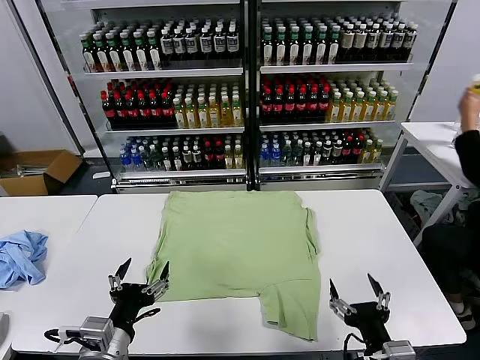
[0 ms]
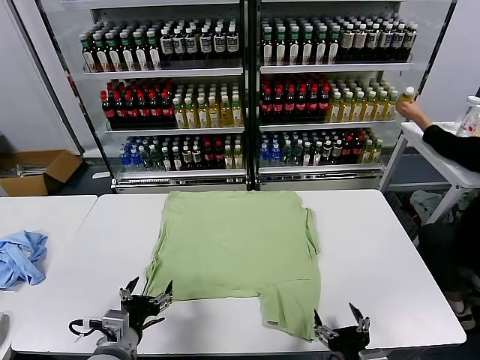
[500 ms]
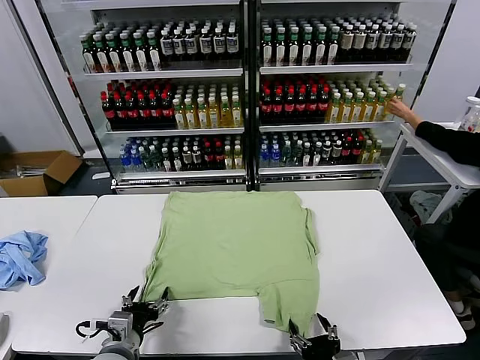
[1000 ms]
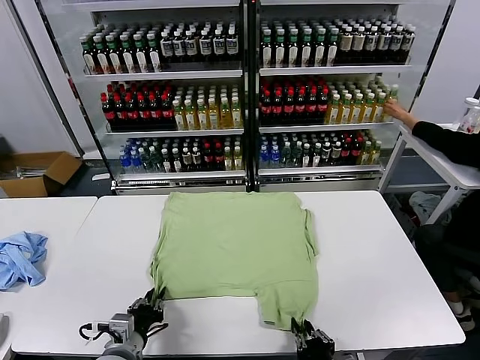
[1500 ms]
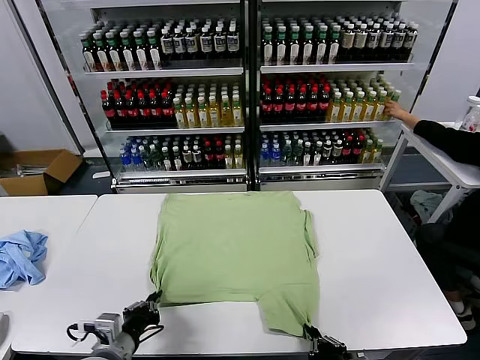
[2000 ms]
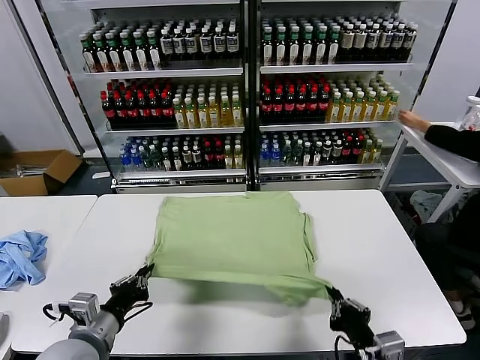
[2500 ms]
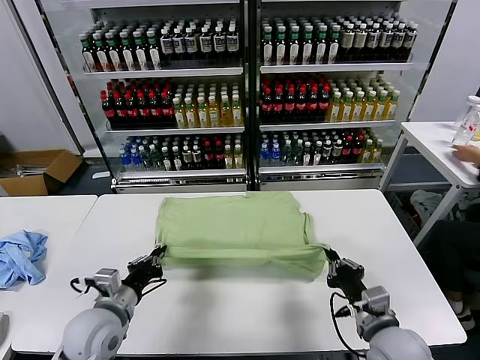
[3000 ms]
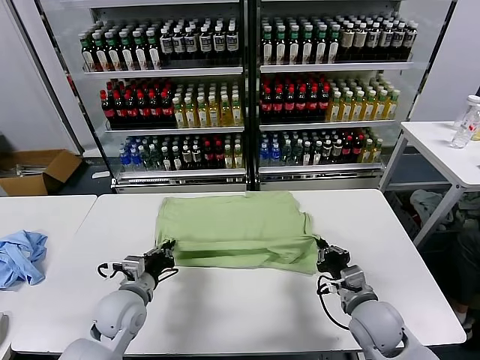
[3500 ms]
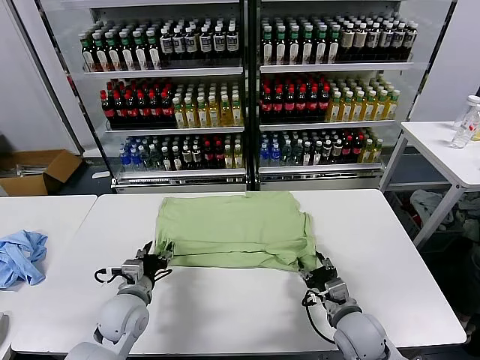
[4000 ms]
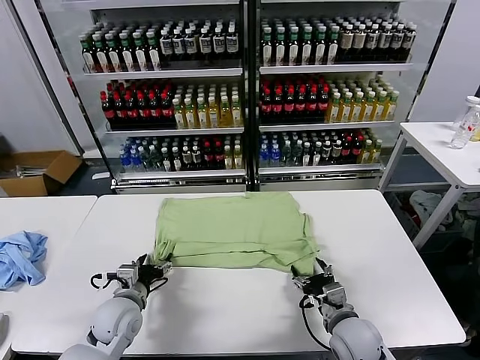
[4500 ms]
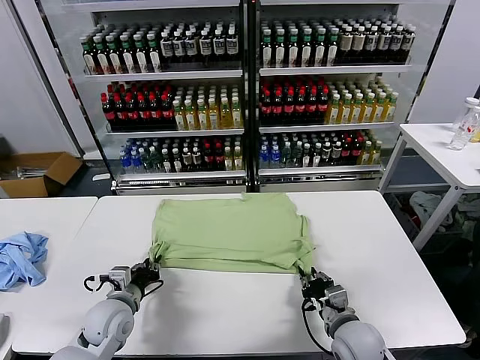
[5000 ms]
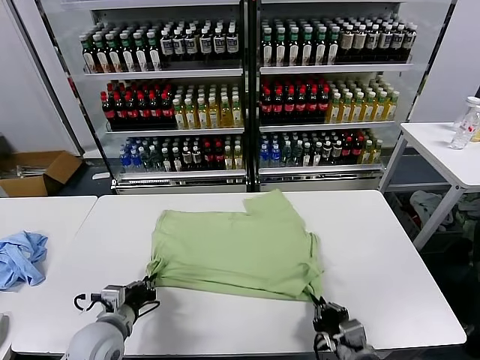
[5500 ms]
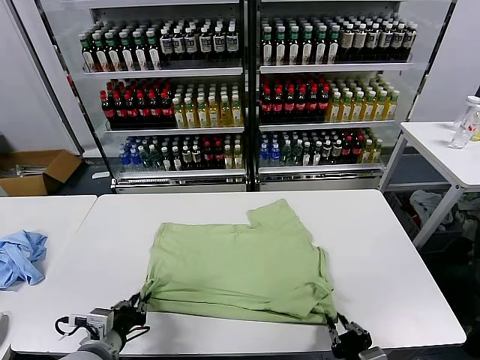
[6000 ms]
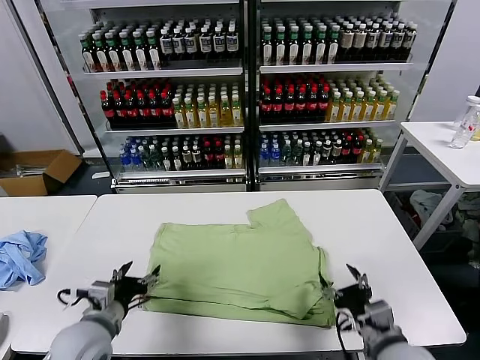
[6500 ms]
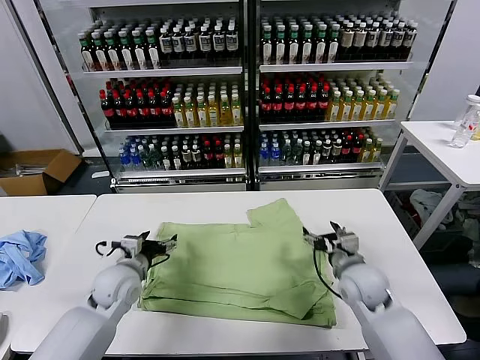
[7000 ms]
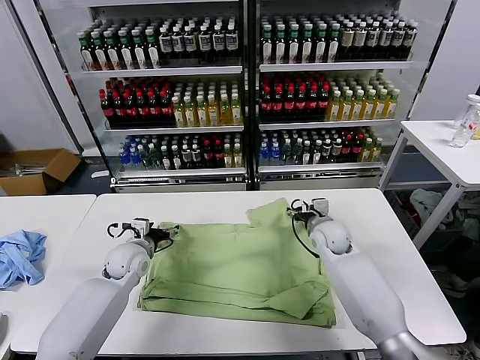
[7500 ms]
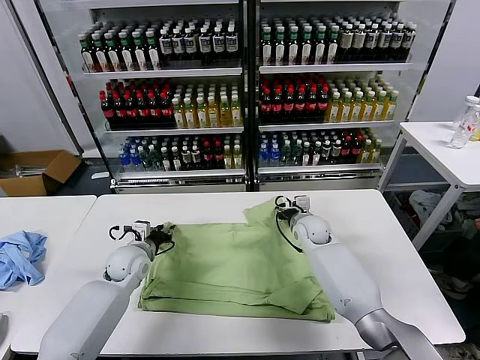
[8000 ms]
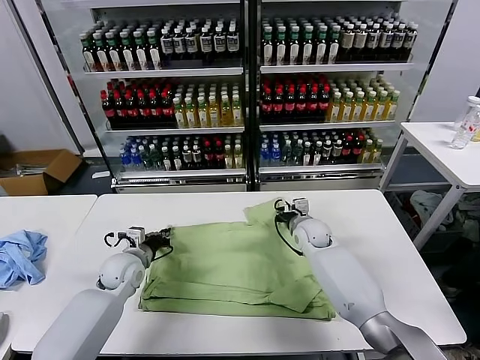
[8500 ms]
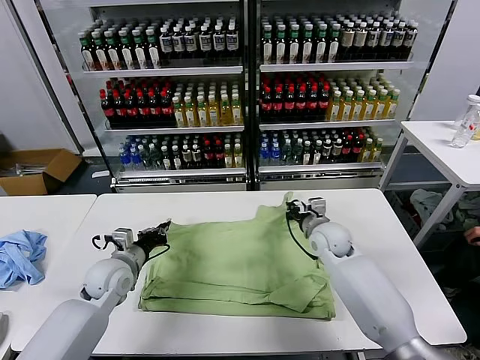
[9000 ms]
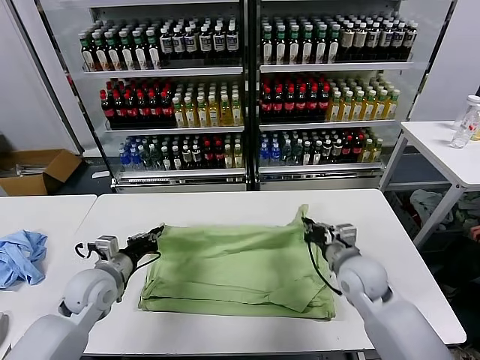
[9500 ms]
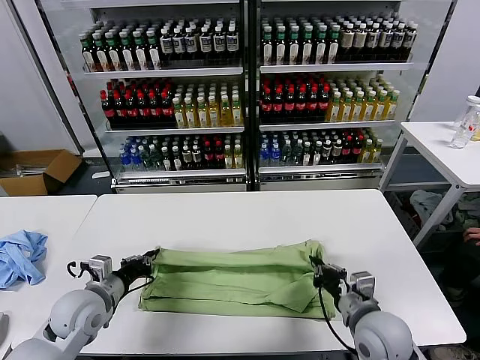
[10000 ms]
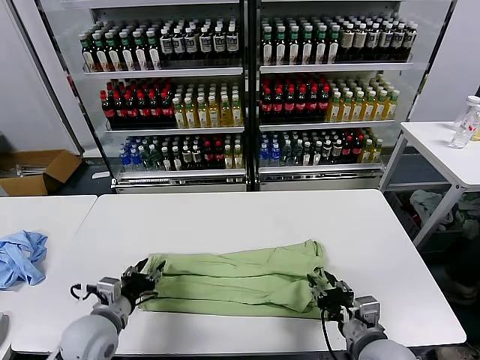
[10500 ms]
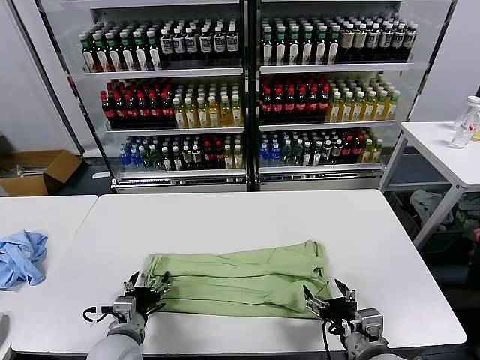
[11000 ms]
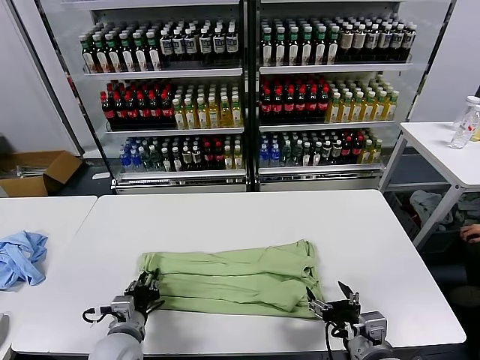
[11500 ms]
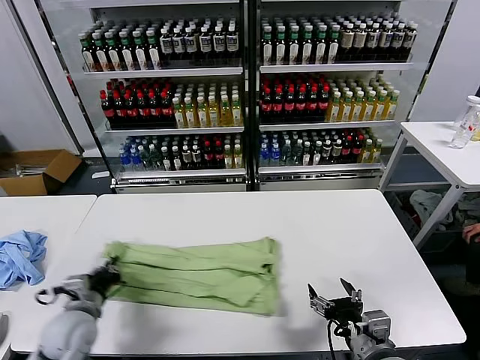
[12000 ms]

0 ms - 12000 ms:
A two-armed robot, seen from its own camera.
Task of the whole recording: fold and organize the clothes.
Step, 0 ms - 1500 ms: use both grippers simultaneously to clamp the lower edge of the clothing fabric.
Step, 2500 ms - 4000 ms: use both grippers to drag the lower edge of the fabric forward and fold it over the upper edge.
Step, 4500 ms - 6000 ms: Drag the clothes downward with both gripper.
Step, 6500 ms - 8500 ms: use both grippers simultaneously to clamp the upper edge of the clothing fabric.
Step, 9000 ms - 10500 ms: use both grippers to drag the upper edge of the fabric backward and fold it over the lower edge.
Step, 11000 ms - 11500 ms: use the left gripper to clamp the left edge of the fabric.
2000 ms - 4000 ms: The grippers both shift forward by about 15 cm. The right gripper opens its fingers. The left gripper opens.
4000 ms - 6000 ms: Both grippers travel together backward, approximately 15 cm. The right gripper closes. Meanwhile the left gripper closes up.
6000 ms - 8000 ms: The left gripper is displaced forward by some 25 cm, and opens, then closes again. The right gripper heads forward, covering about 40 cm, and opens and closes again.
8000 ms - 10000 ms: The right gripper moves backward, approximately 30 cm, and closes. The left gripper travels backward by about 15 cm, and closes up.
10000 ms - 12000 ms: The left gripper reaches roughly 5 cm to the right, then returns, and opens, then closes again. The right gripper goes some 10 cm backward, and opens.

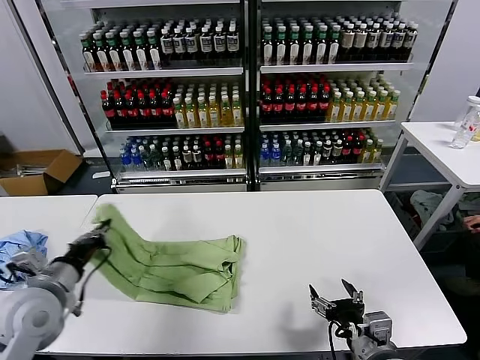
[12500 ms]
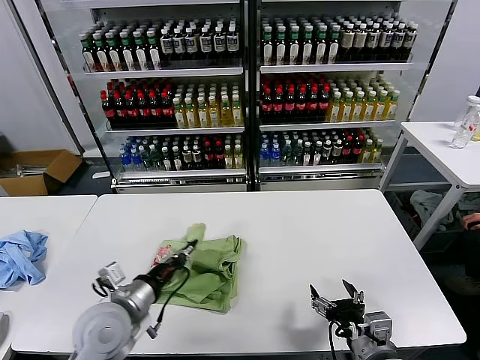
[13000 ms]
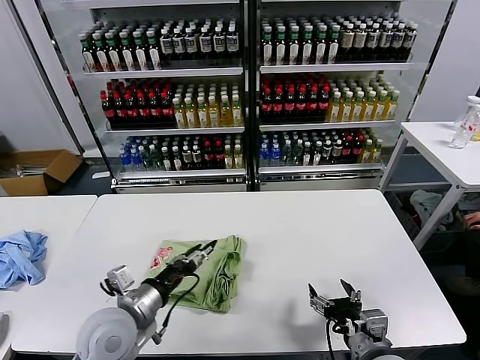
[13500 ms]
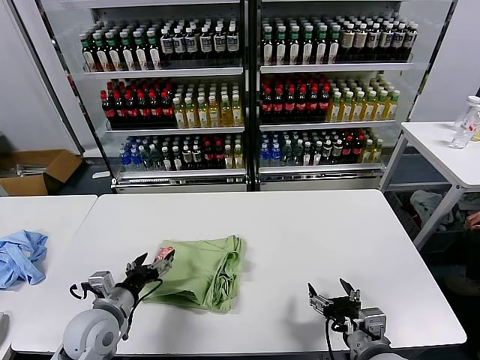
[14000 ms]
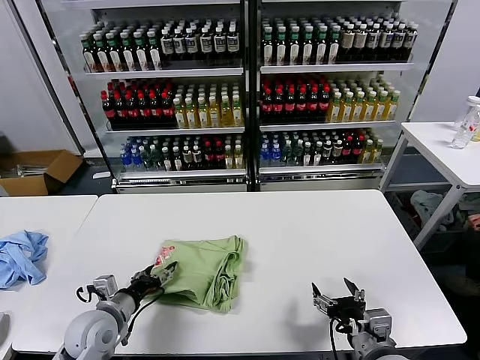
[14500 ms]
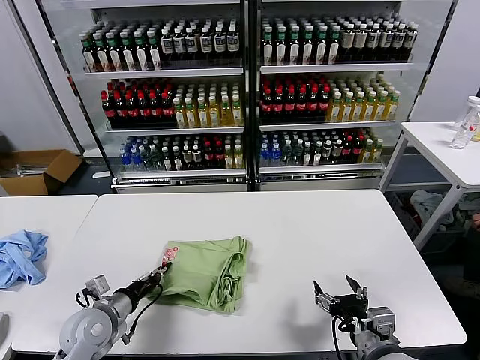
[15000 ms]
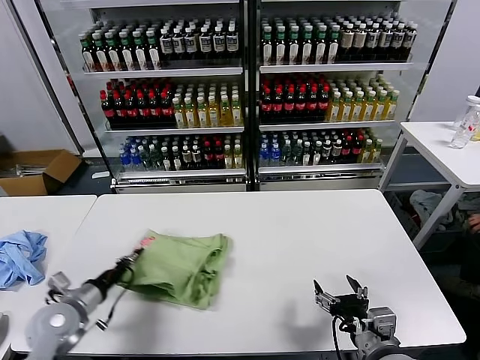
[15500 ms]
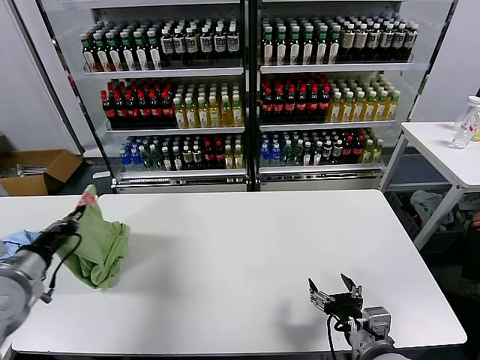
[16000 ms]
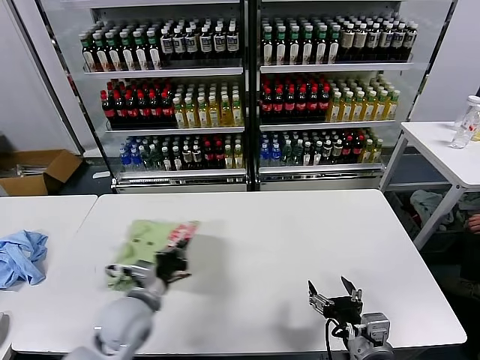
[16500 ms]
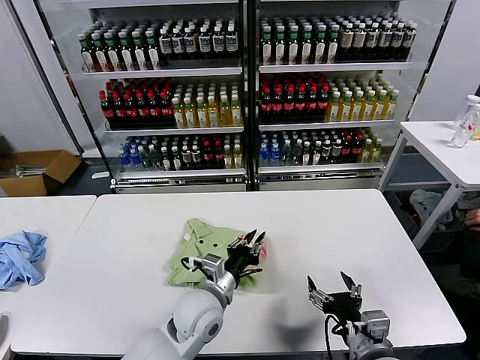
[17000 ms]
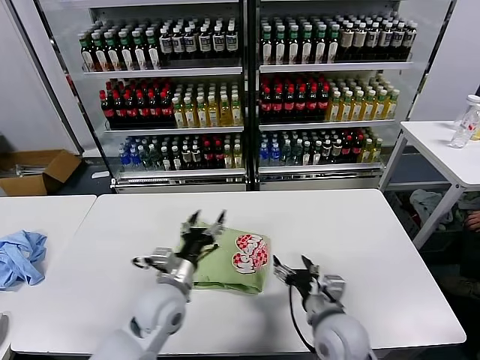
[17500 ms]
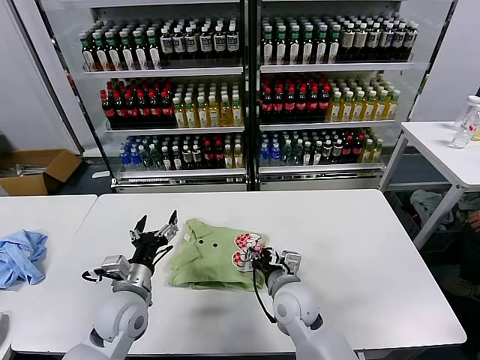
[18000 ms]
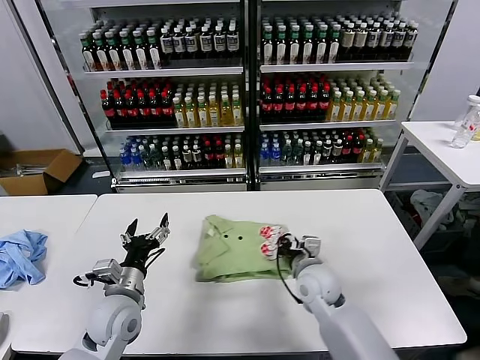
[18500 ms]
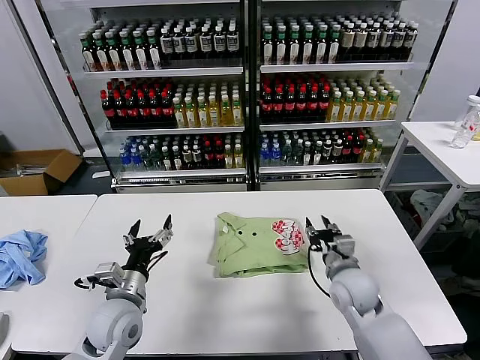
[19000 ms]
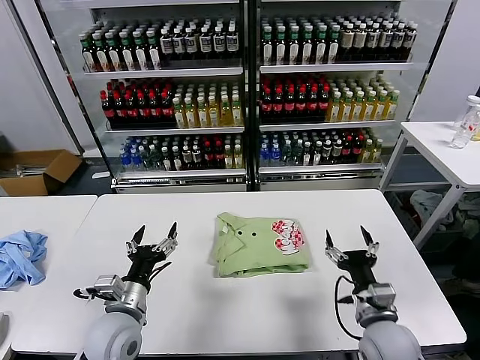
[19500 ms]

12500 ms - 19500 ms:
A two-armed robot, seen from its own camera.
Task of the whole recording: fold and organize the clothes.
Step, 13500 ms - 17000 ms: Flip the folded clothes over with left gripper.
Step, 17500 ms - 18500 ms: Drag the clothes to the center of the table.
12500 ms - 14500 ms: The left gripper moves downward and to the right, about 15 cm, and opens its fingers.
14500 ms - 16000 ms: The left gripper shifts roughly 20 cm to the left and upward, and closes.
16000 ms - 17500 ms: The right gripper is displaced forward and to the left by about 10 cm, while the left gripper goes approximately 30 cm to the right, and opens its fingers.
17500 ms - 19500 ms: The left gripper shifts approximately 10 cm to the left and backward, while the right gripper is displaced to the right by some 5 cm, and closes and opens again.
